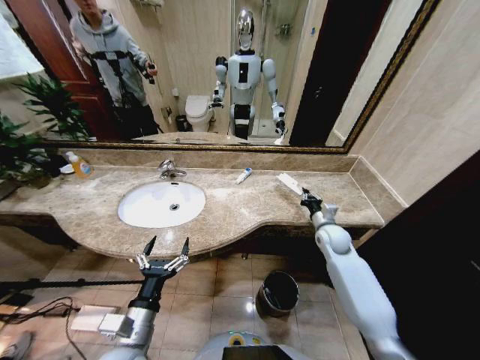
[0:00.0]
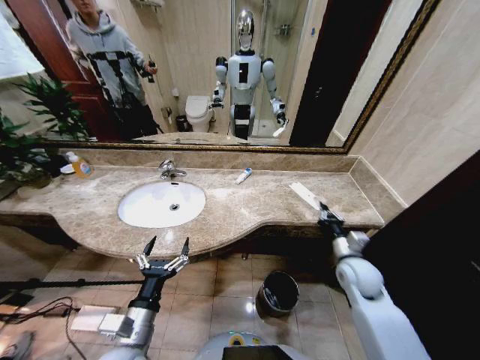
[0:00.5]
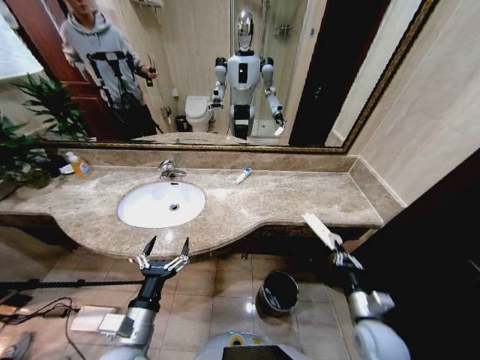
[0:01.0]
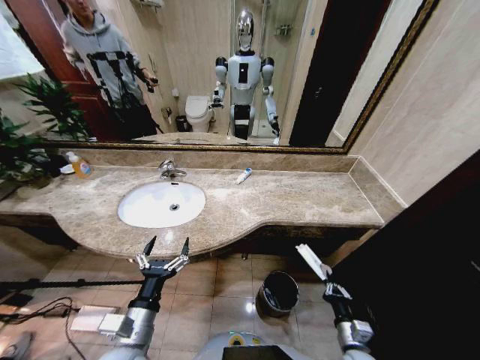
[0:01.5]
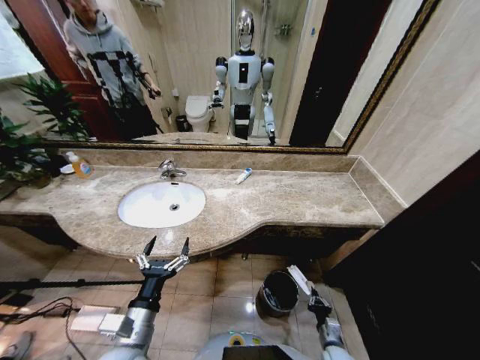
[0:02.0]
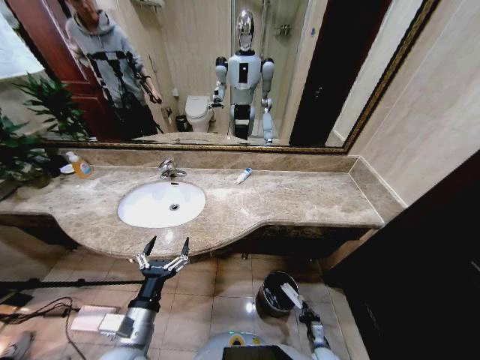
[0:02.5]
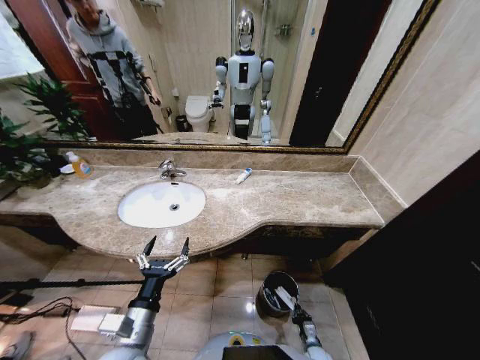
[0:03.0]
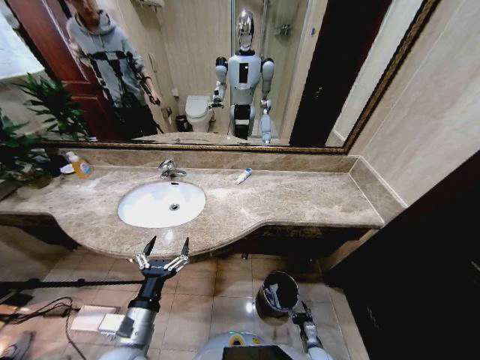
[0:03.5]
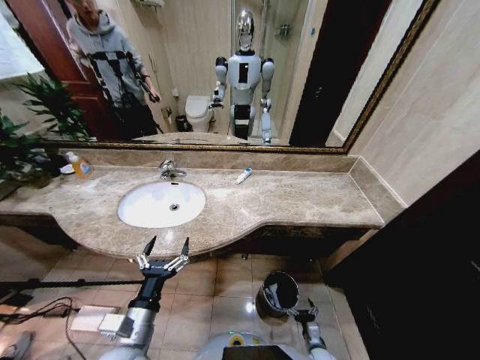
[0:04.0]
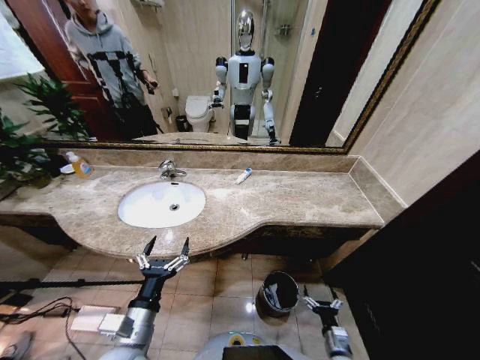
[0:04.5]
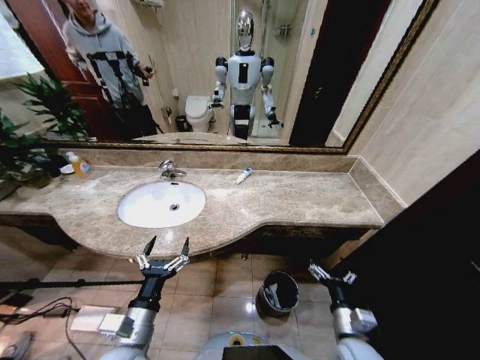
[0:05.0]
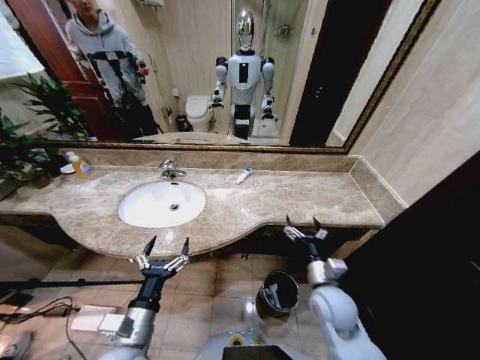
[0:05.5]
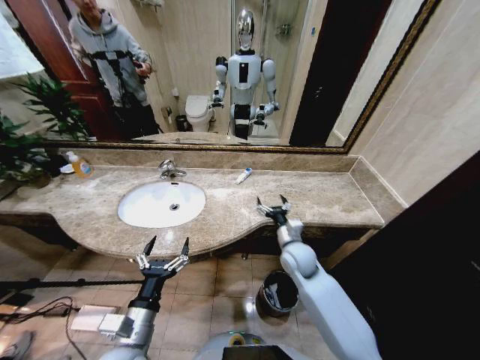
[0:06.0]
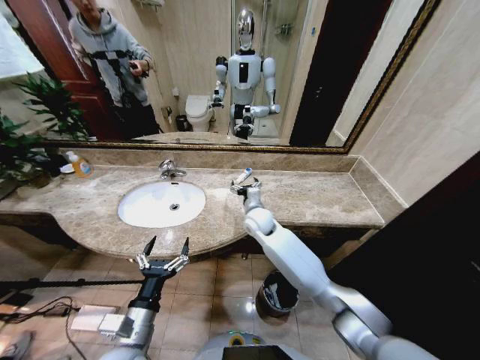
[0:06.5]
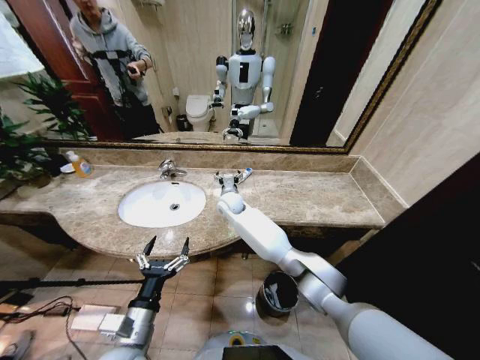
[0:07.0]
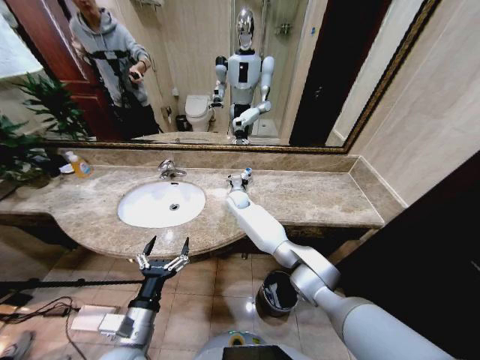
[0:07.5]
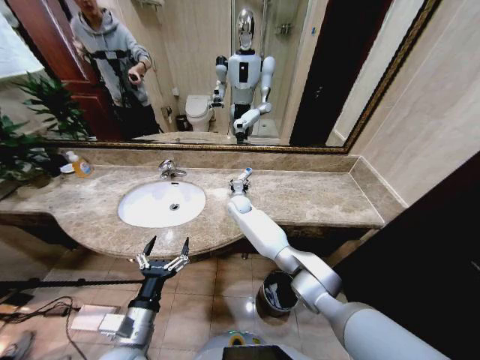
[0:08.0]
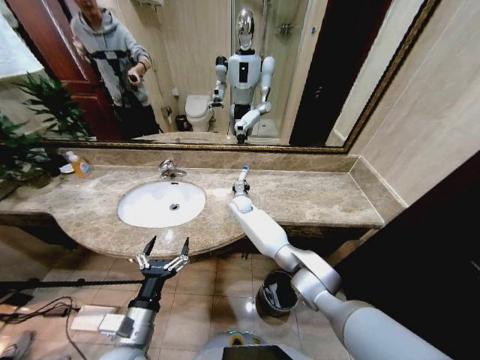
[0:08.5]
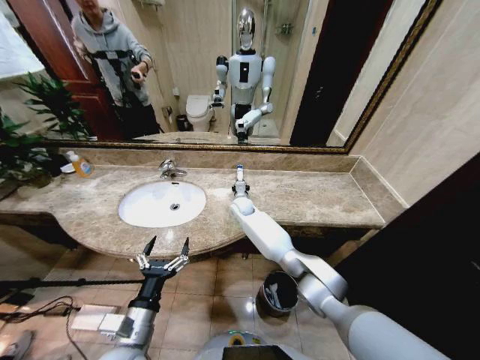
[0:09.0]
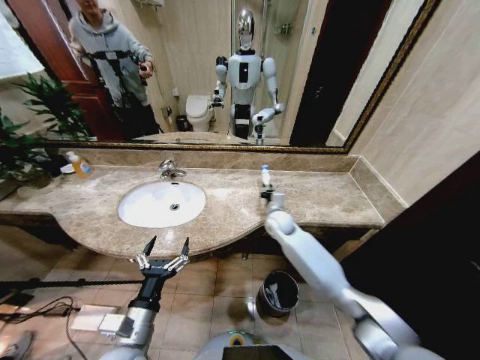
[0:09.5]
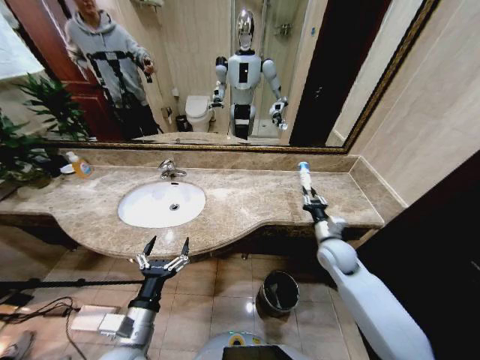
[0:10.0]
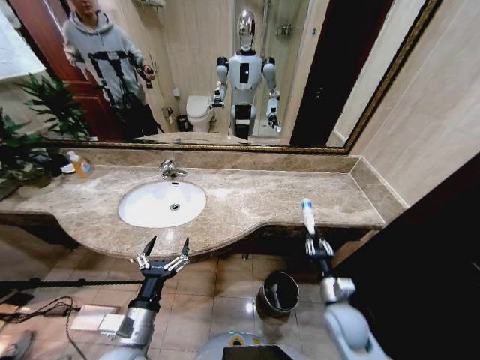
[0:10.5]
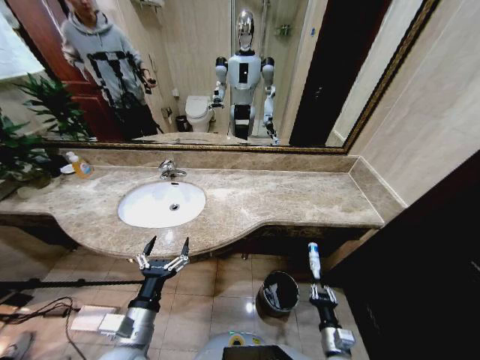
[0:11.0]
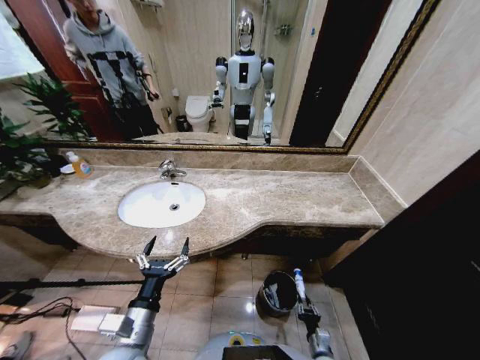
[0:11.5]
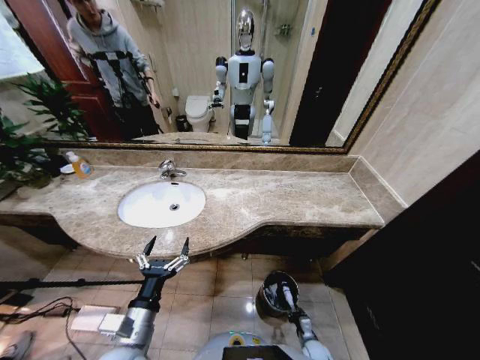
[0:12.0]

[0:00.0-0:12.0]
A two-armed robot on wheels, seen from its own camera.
Task of the whole recording: Pick up the trash from the sink and place it in the trash bin.
0:00.0 to 0:02.0: The right gripper goes some 40 cm backward and downward.
0:02.0 to 0:04.0: The right gripper is displaced downward by some 5 cm, and opens its fingers.
0:04.0 to 0:06.0: The right gripper goes approximately 40 cm upward and forward.
0:06.0 to 0:08.0: The right gripper heads forward and to the left, covering approximately 25 cm.
0:08.0 to 0:10.0: The right gripper moves to the right and backward, roughly 35 cm, and closes its fingers.
0:10.0 to 0:12.0: The right gripper travels downward and backward by roughly 40 cm.

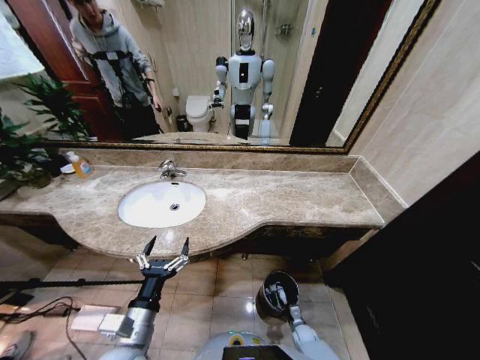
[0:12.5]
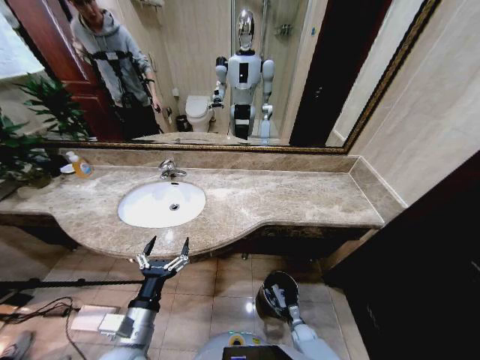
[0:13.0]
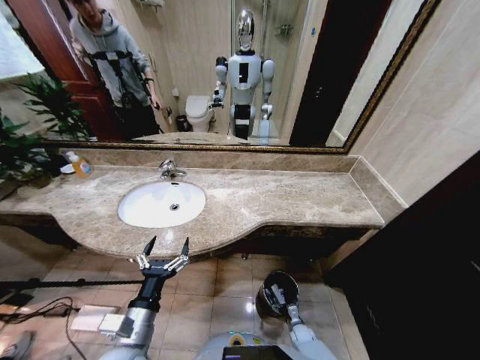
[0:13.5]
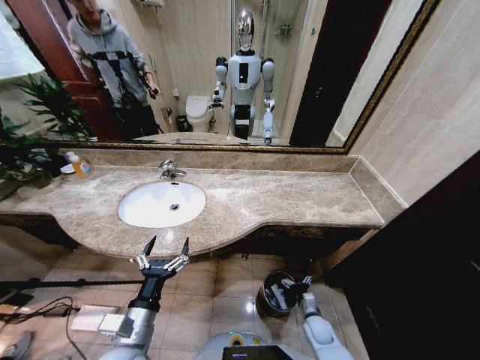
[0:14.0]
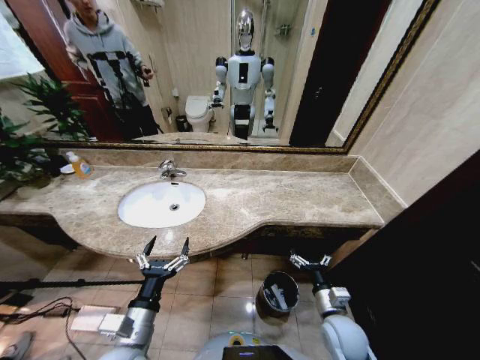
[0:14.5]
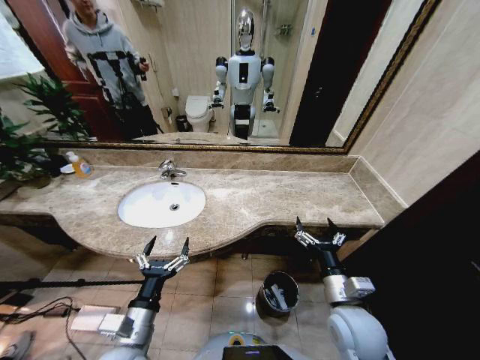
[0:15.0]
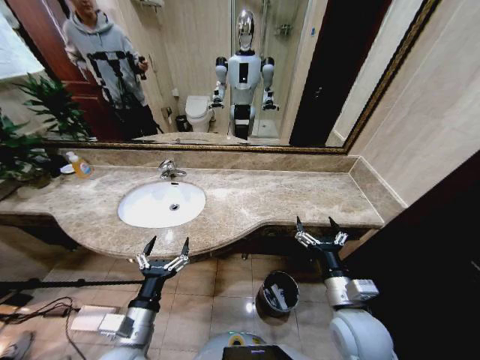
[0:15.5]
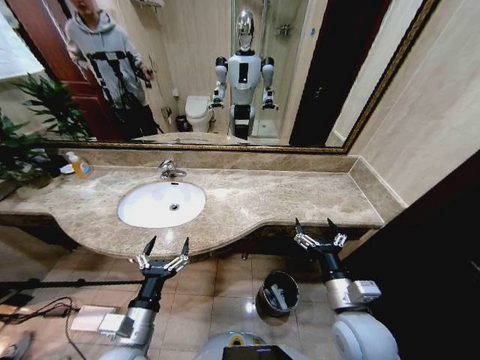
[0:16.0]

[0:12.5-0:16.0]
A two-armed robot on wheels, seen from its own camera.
Task of the whole recording: Pick up the trash from the sink and place it in the trash bin.
0:12.5 to 0:14.5: The right gripper heads upward, covering roughly 30 cm, and opens up.
0:14.5 to 0:16.0: The right gripper goes approximately 15 cm upward.

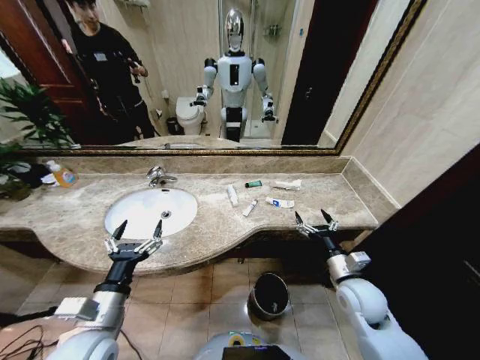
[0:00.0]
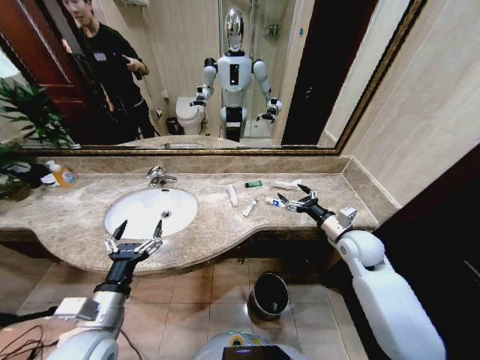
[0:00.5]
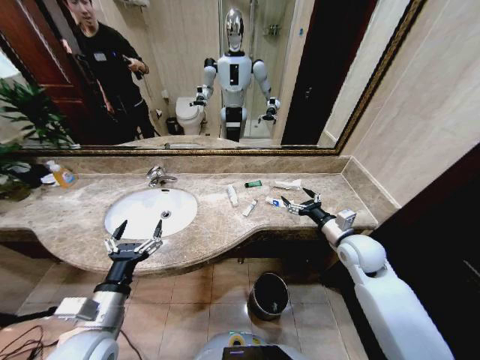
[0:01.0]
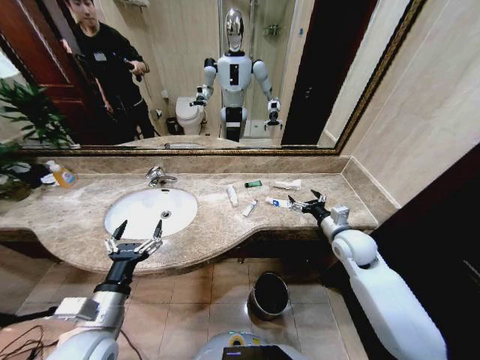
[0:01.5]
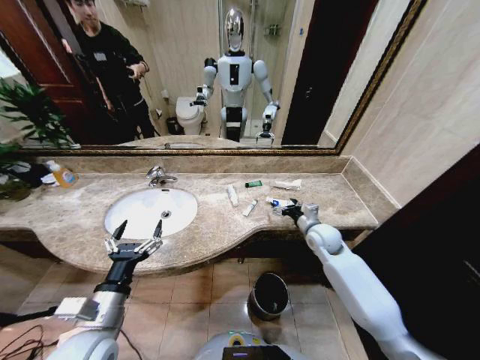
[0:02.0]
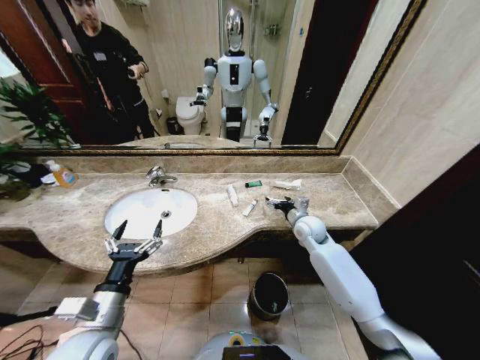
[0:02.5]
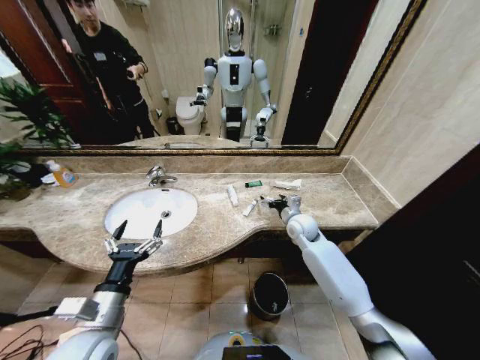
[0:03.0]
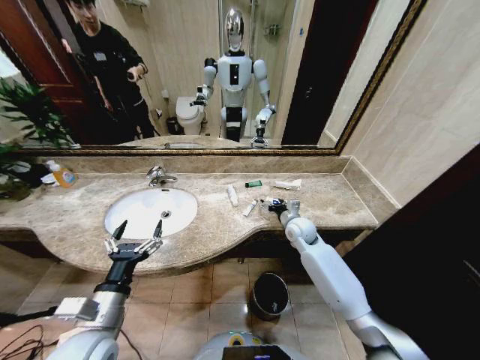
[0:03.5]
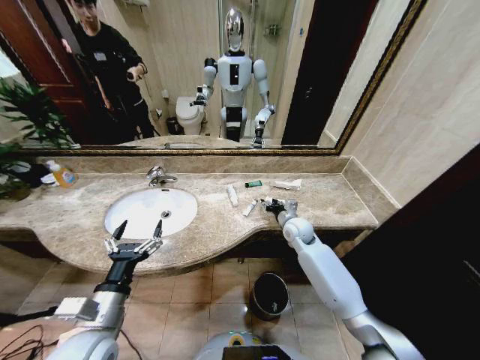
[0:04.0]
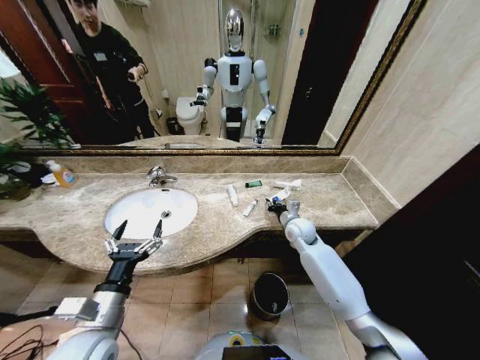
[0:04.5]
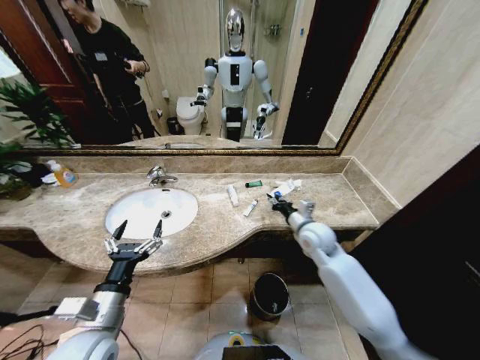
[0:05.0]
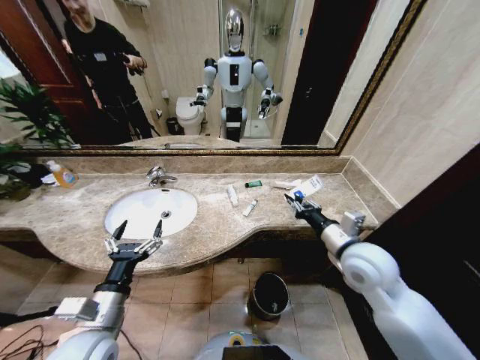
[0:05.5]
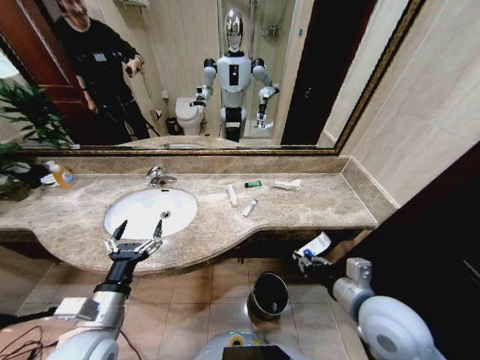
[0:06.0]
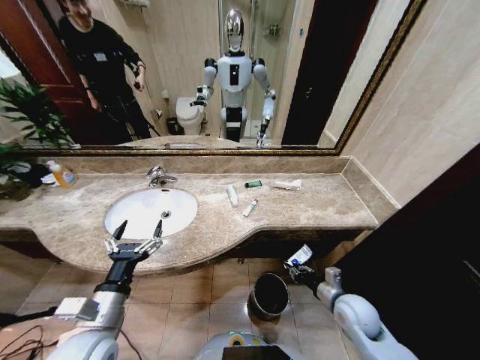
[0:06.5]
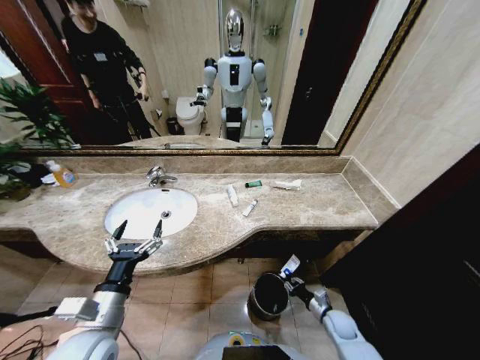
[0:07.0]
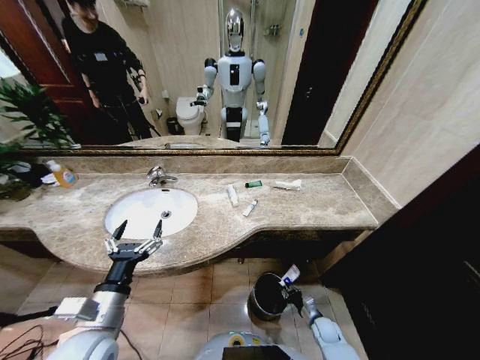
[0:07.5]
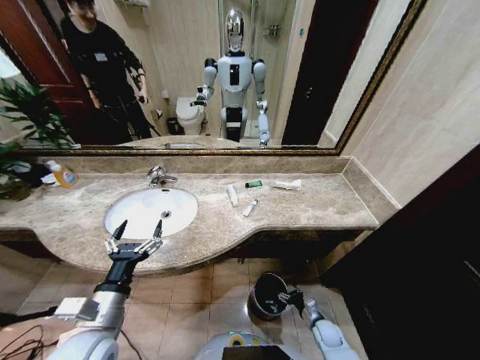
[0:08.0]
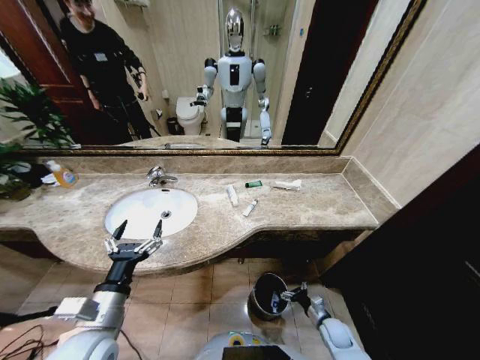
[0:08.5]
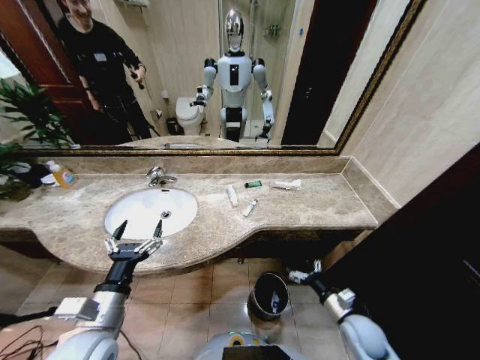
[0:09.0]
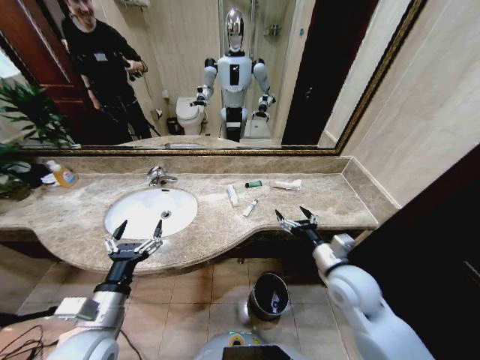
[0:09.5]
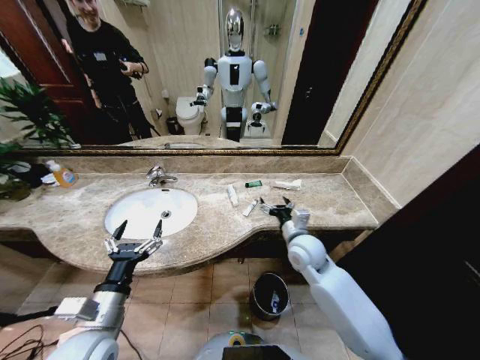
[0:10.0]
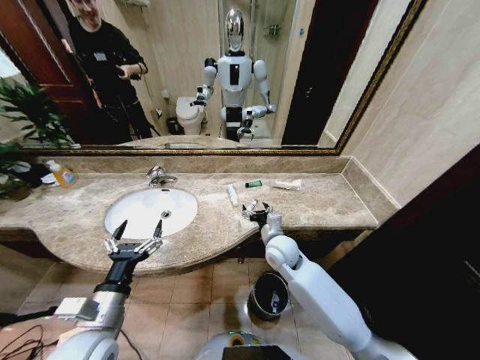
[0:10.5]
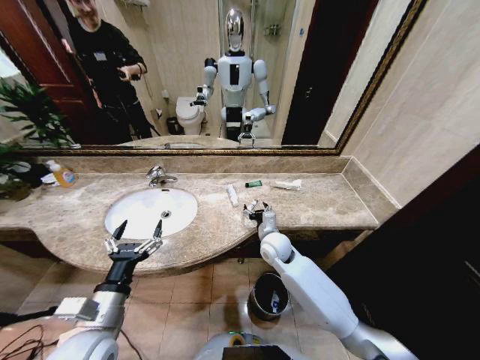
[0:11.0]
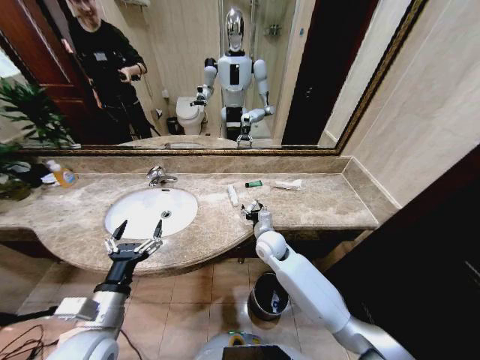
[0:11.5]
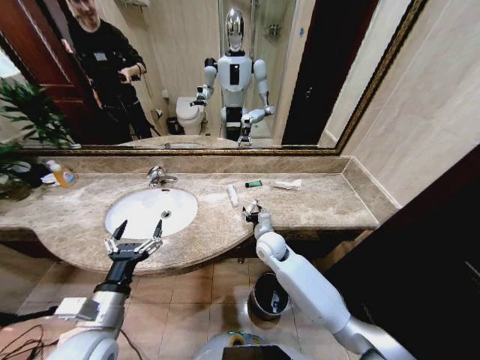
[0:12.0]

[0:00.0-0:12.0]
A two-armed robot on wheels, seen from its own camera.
Task of the whole recording: Pick up the trash from the sink and place it in the trash bin.
0:02.0 to 0:04.0: The right gripper heads to the left, covering roughly 5 cm.
0:04.0 to 0:06.0: The right gripper heads backward, covering some 30 cm, and closes up.
0:06.0 to 0:08.0: The right gripper goes some 40 cm downward, and opens up.
0:08.0 to 0:10.0: The right gripper heads upward and forward, covering approximately 40 cm.
0:10.0 to 0:12.0: The right gripper heads to the left, downward and forward, covering about 10 cm.
